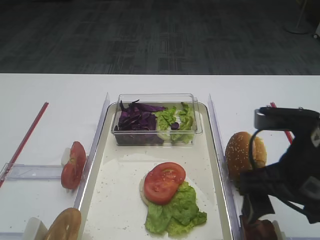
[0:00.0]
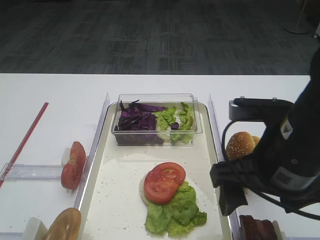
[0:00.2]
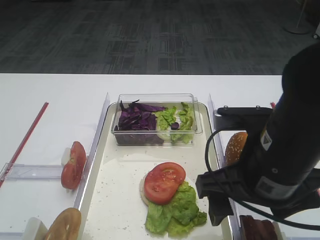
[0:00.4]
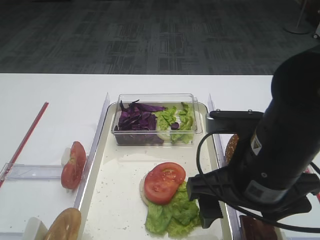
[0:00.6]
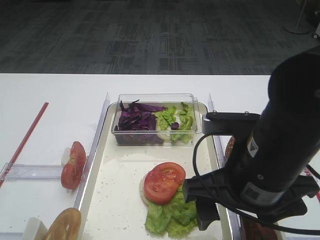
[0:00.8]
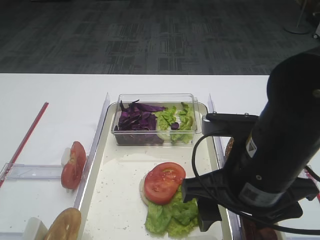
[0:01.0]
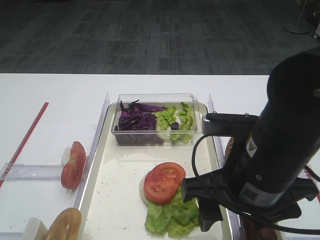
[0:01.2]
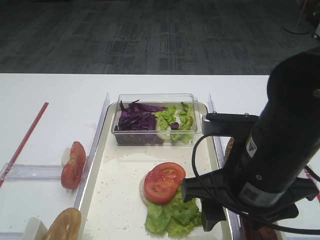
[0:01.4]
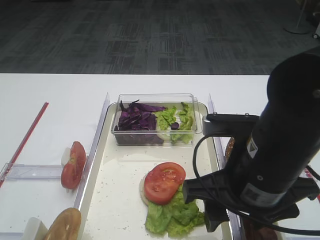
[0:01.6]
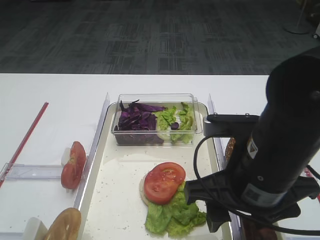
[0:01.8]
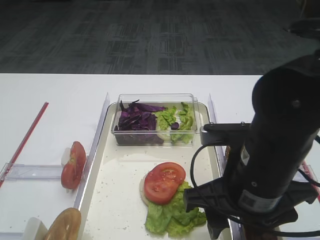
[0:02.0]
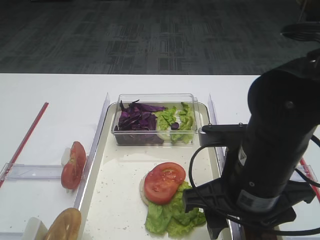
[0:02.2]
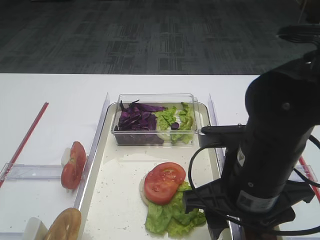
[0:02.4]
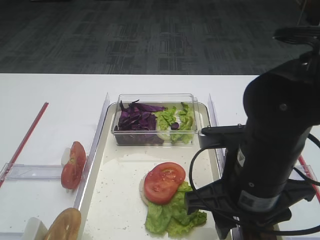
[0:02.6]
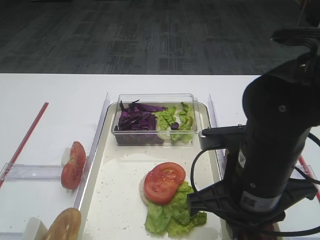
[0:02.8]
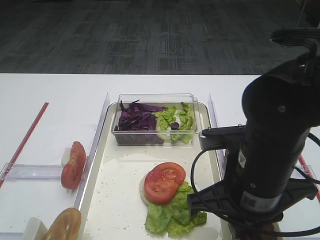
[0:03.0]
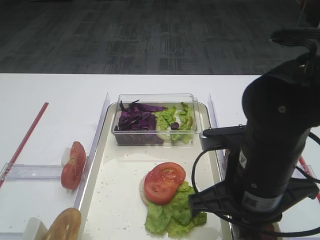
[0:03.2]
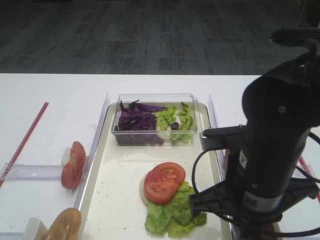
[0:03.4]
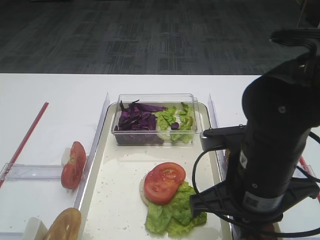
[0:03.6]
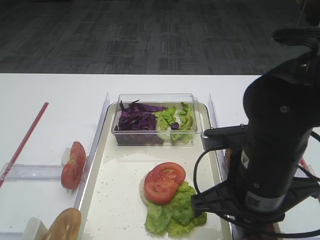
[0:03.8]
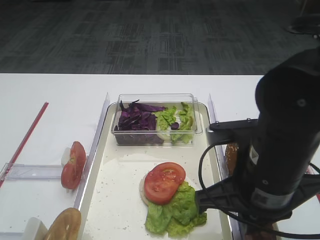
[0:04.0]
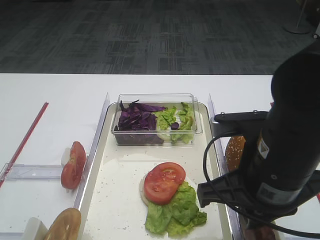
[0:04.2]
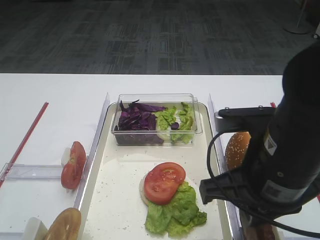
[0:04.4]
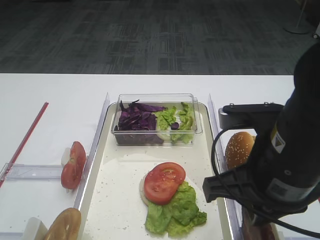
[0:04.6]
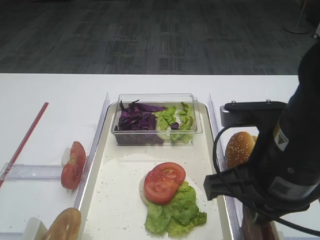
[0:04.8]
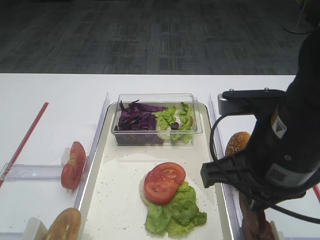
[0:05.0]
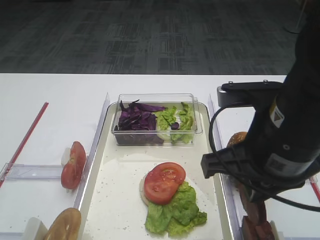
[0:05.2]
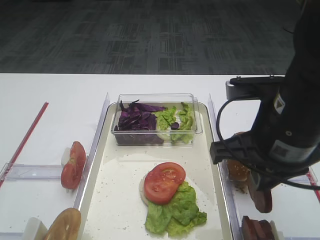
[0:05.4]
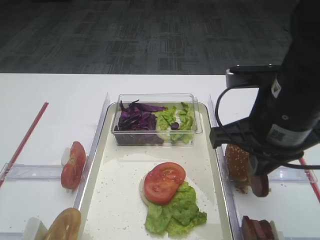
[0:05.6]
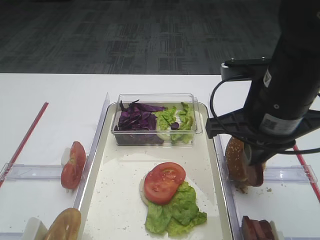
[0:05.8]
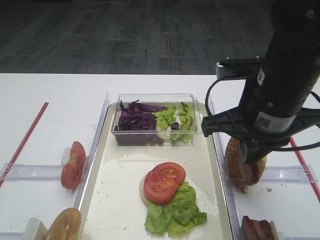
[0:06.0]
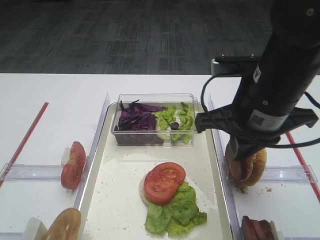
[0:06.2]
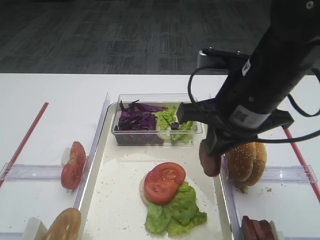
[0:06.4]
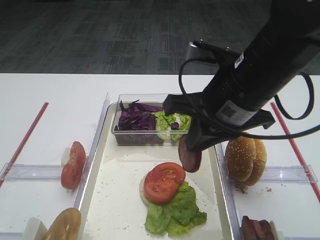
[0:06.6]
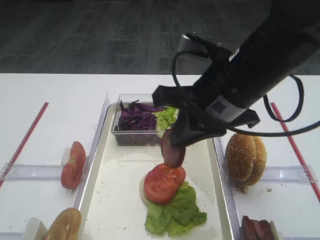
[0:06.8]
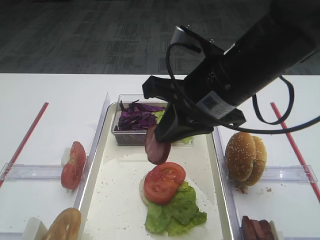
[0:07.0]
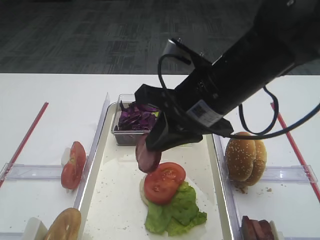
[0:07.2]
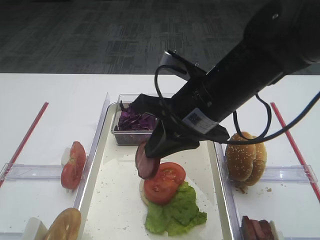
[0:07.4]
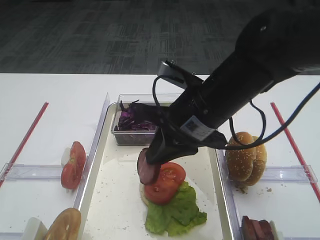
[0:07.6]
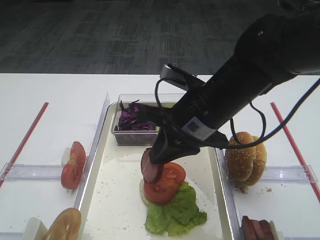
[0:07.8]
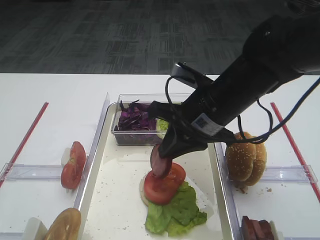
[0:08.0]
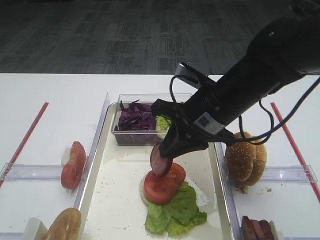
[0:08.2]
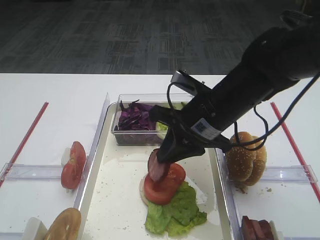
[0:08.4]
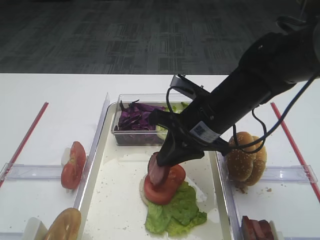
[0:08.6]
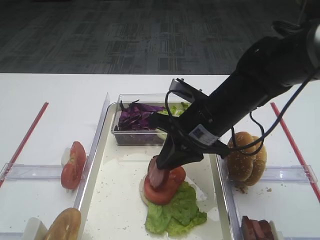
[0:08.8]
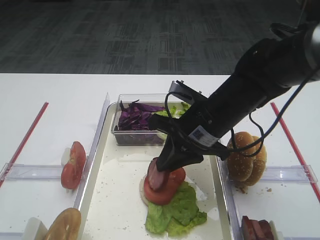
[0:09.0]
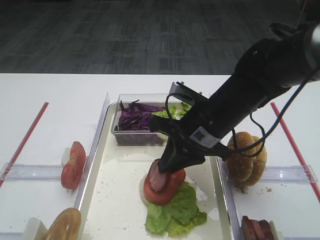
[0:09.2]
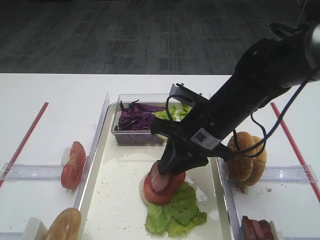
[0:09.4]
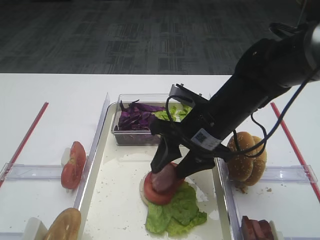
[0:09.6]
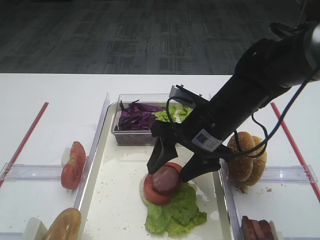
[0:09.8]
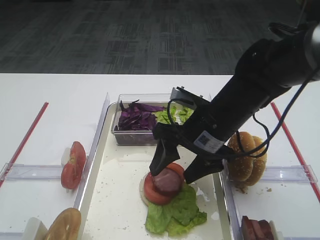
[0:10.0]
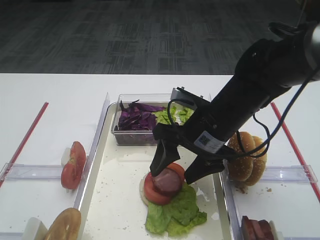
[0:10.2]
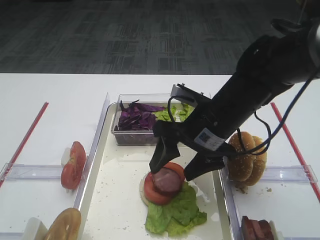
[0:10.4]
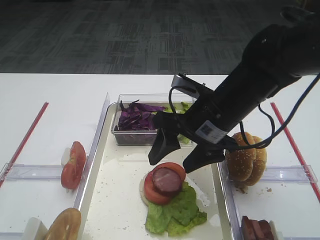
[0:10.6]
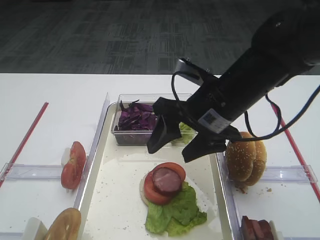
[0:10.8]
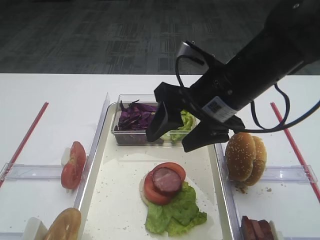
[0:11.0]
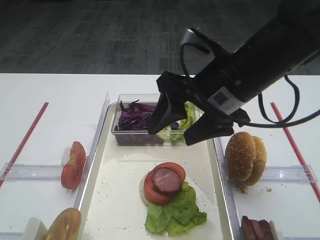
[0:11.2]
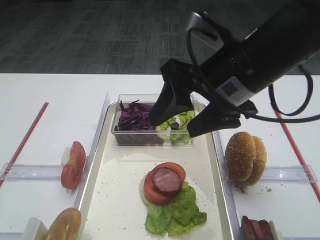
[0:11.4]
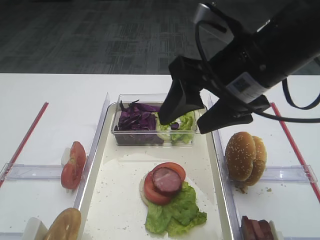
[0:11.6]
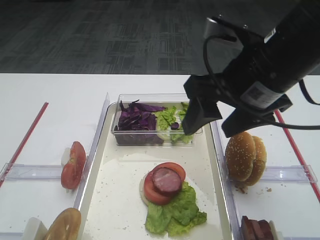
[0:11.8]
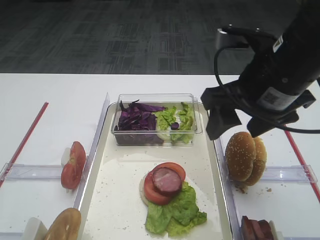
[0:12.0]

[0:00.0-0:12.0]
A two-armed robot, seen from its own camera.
Step, 0:00.0 to 0:05.4: Pick up the cutlet with the right gripper.
Step, 0:05.6 to 0:11.0: Place the cutlet on the tomato slice with the right gripper.
0:00.0 to 0:01.6: The right gripper is displaced to the left by approximately 5 cm.
0:01.6 to 0:03.0: The right gripper closes.
0:03.0 to 0:04.4: The grippers move only a little.
0:04.4 to 0:06.0: The right gripper heads forward, covering approximately 5 cm.
0:06.0 to 0:07.6: The right gripper travels to the left by about 5 cm.
0:07.6 to 0:09.0: The right gripper travels downward by roughly 5 cm.
0:09.0 to 0:10.4: The right gripper opens.
0:10.4 to 0:12.0: The right gripper travels upward and to the right by approximately 10 cm.

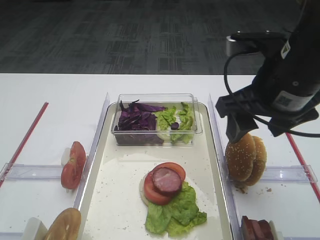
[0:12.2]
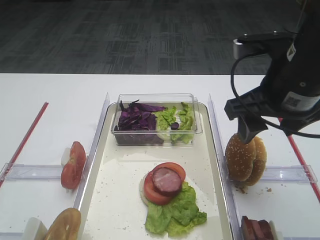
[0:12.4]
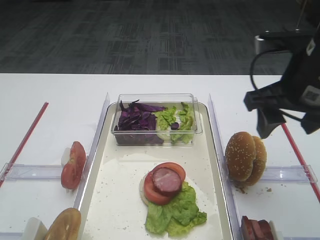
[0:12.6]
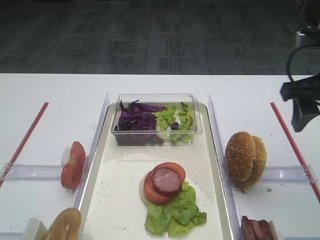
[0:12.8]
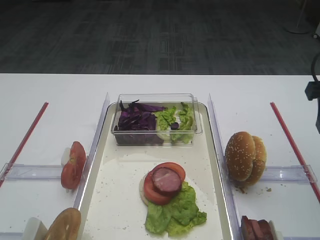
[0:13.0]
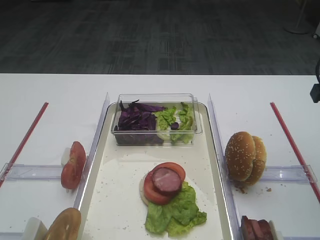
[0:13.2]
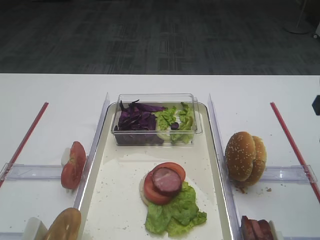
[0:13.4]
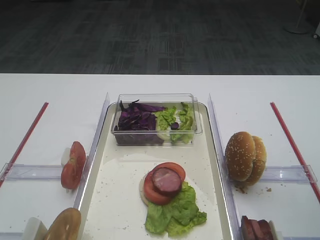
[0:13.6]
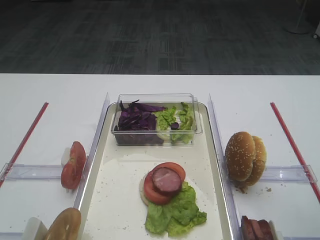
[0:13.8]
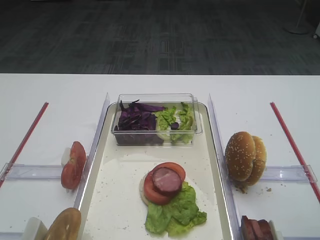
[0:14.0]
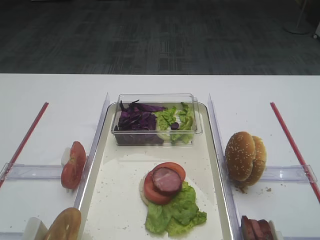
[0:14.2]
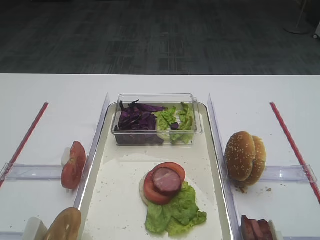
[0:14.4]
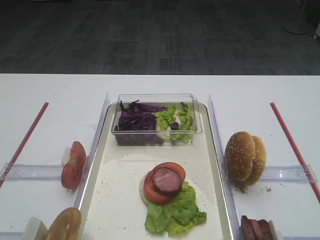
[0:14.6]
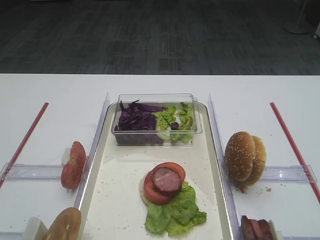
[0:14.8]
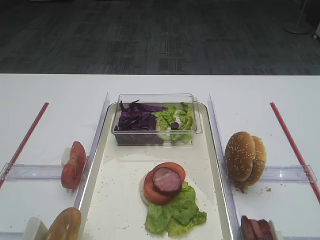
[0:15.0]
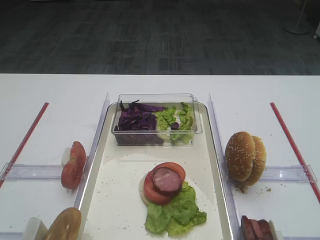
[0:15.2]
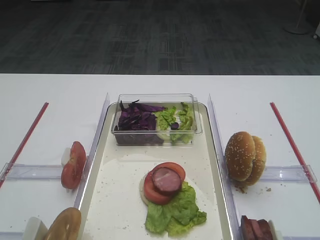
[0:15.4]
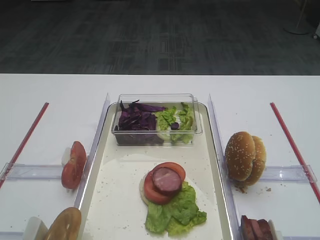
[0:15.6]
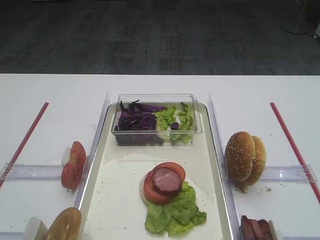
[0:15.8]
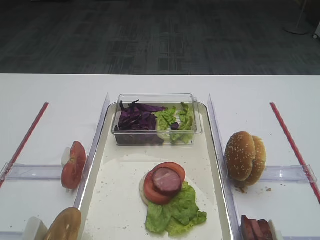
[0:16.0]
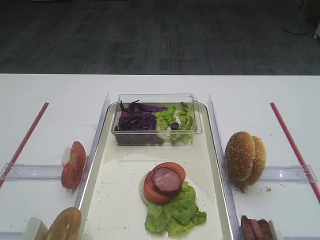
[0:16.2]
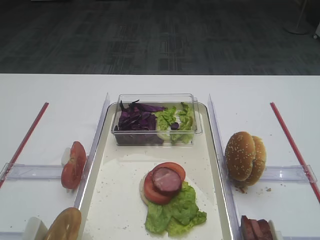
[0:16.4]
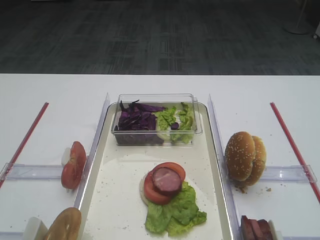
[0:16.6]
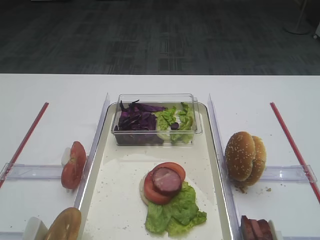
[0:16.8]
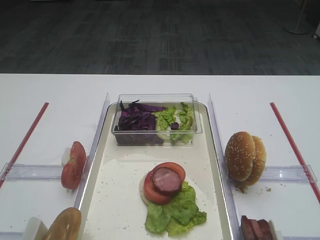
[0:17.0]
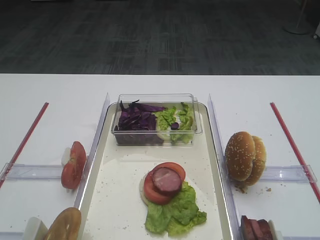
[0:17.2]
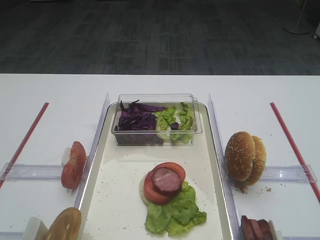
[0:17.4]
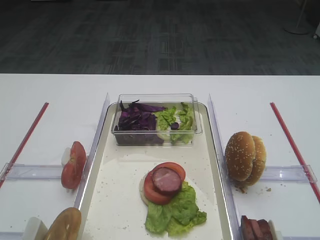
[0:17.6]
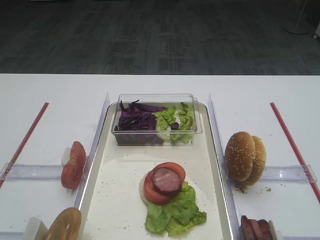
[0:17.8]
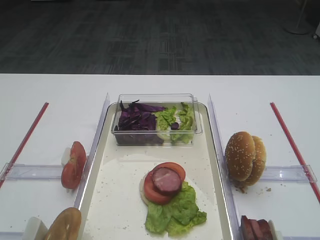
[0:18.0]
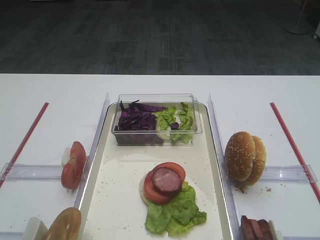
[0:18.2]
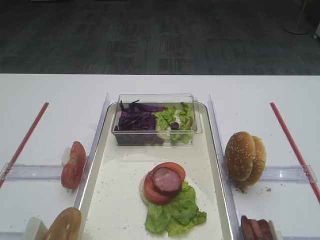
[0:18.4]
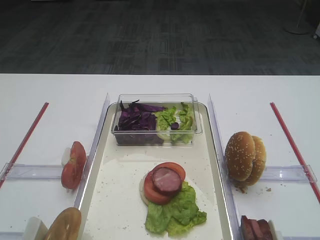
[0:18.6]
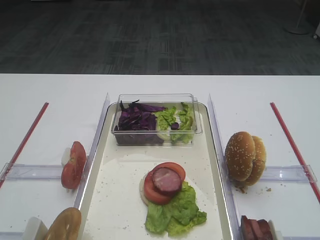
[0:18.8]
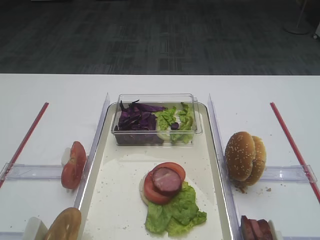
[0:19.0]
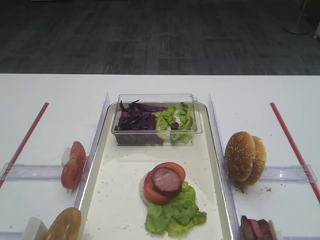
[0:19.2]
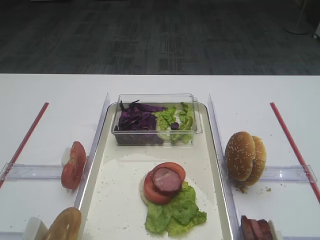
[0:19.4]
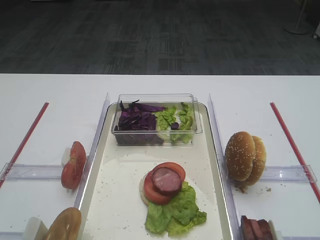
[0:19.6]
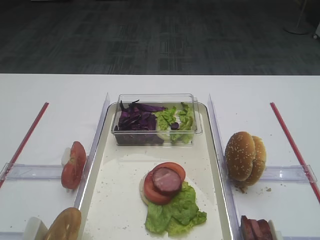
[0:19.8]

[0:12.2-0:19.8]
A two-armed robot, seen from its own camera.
0:12.2 to 0:13.8: The right gripper travels to the right and backward by approximately 15 cm.
0:15.2 to 0:19.8: The two grippers keep their place.

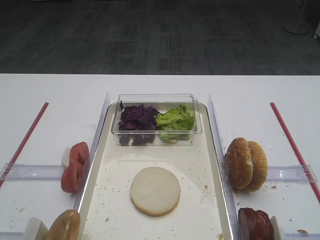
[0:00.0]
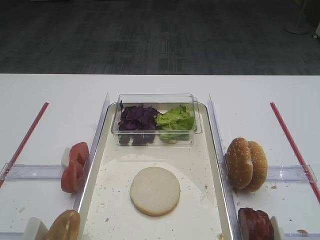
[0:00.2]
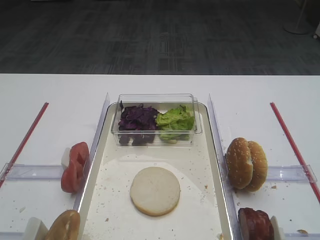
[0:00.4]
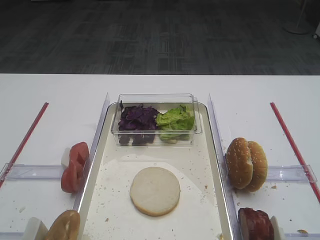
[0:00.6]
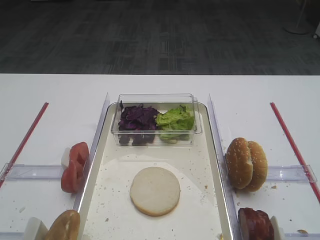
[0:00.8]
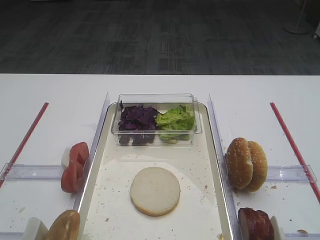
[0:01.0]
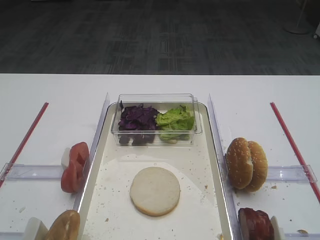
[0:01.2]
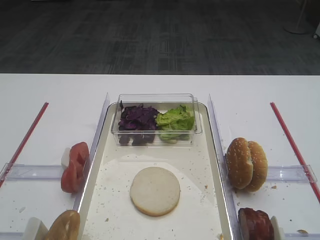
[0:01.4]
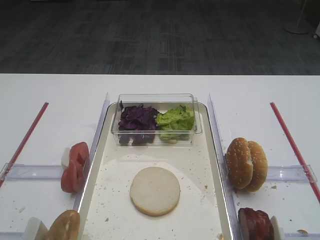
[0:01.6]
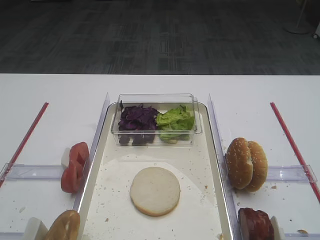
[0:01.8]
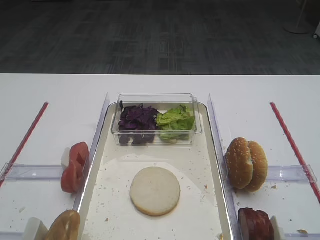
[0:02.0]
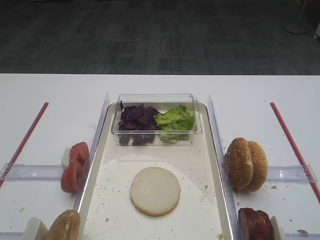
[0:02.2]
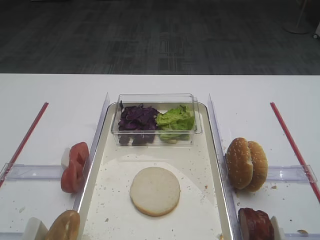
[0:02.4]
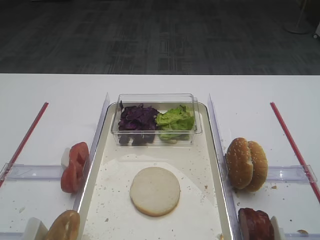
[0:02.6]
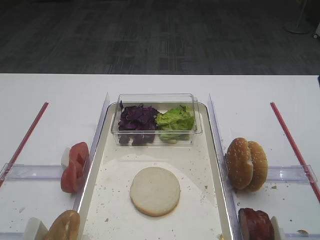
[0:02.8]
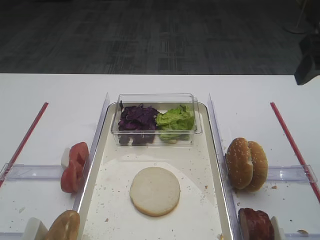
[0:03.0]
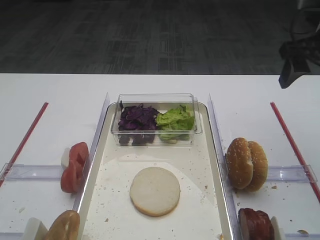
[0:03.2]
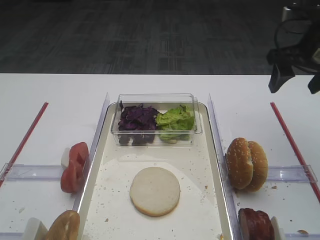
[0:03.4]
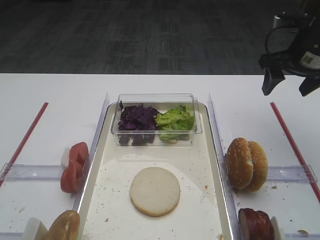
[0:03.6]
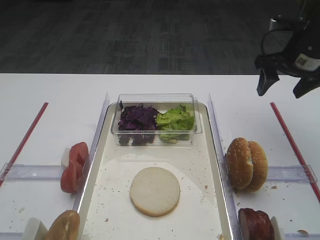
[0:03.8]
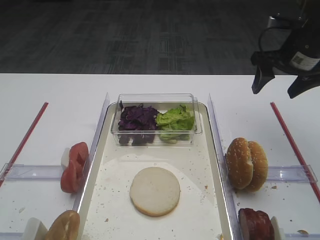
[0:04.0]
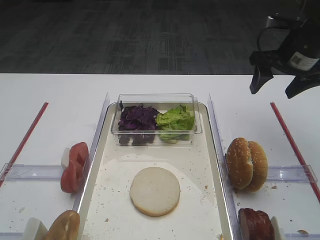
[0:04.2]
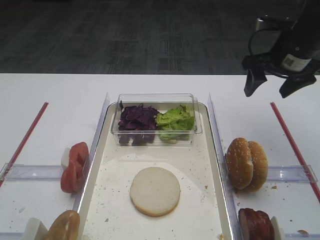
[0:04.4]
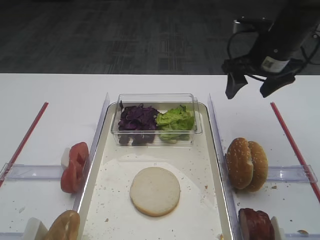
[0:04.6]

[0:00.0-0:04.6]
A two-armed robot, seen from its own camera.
0:01.6 to 0:03.0: The right gripper travels forward by about 30 cm.
0:03.0 to 0:04.6: The right gripper is displaced forward, downward and to the left by roughly 15 cm.
